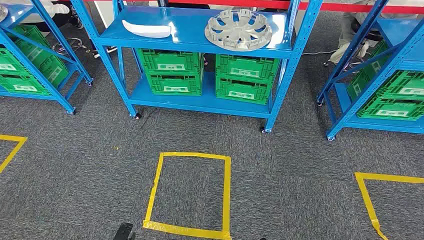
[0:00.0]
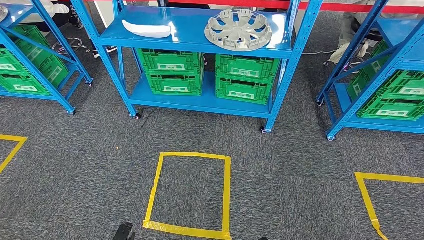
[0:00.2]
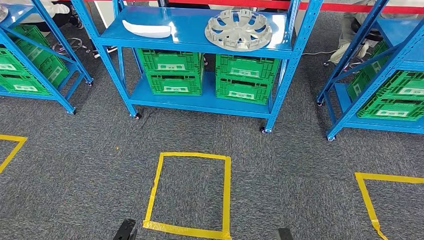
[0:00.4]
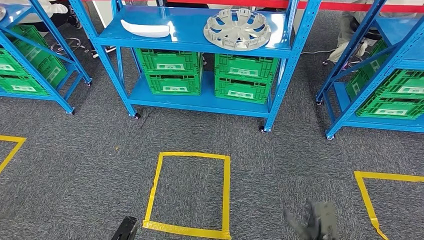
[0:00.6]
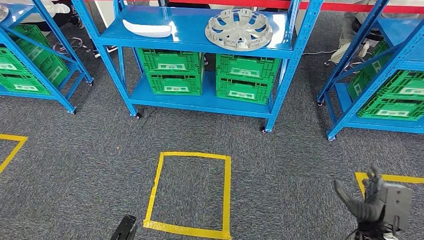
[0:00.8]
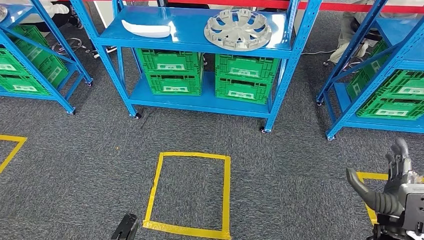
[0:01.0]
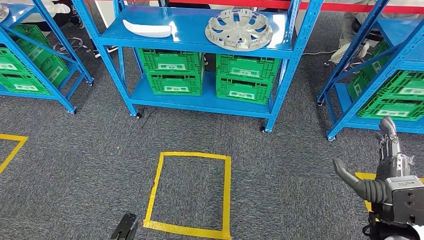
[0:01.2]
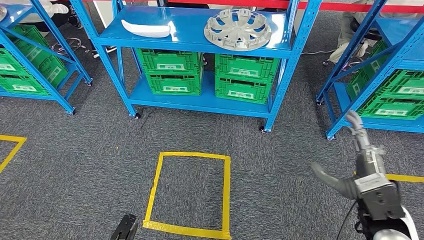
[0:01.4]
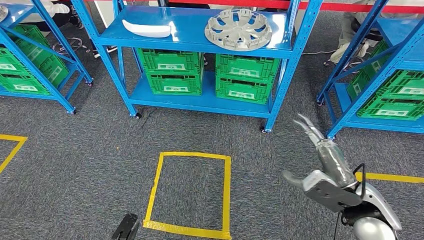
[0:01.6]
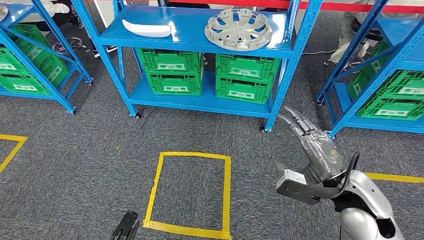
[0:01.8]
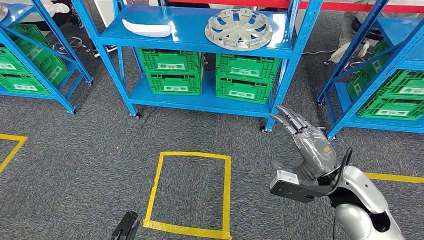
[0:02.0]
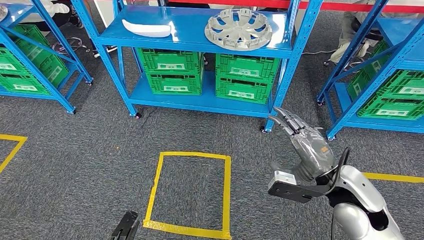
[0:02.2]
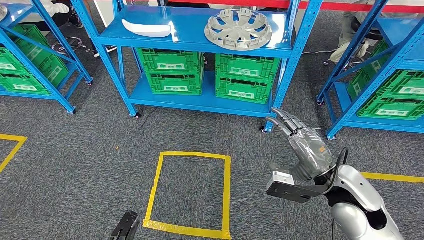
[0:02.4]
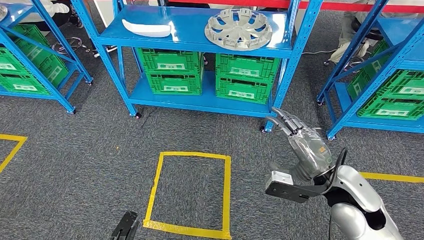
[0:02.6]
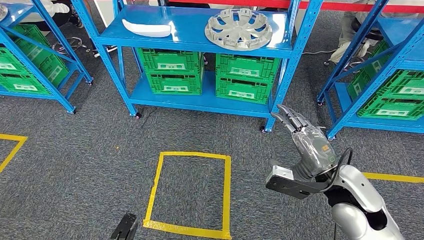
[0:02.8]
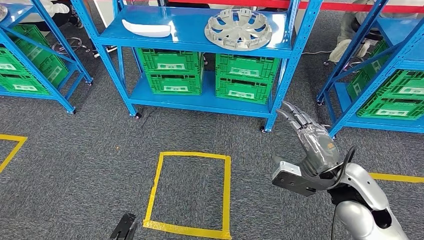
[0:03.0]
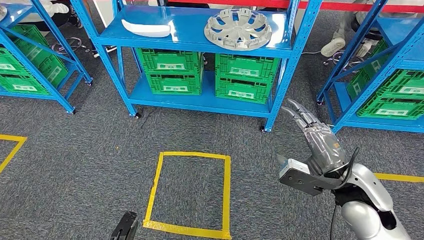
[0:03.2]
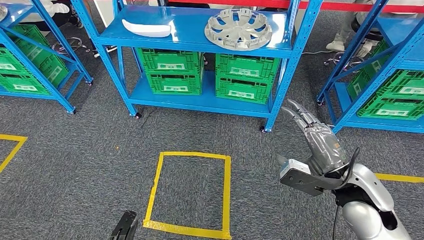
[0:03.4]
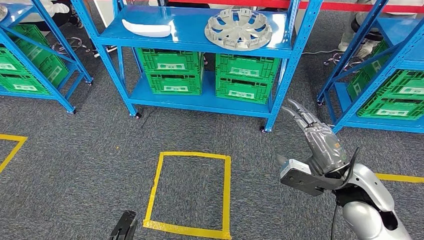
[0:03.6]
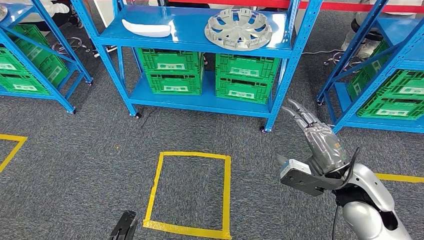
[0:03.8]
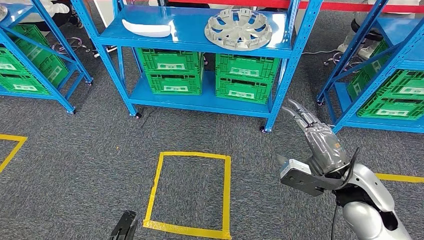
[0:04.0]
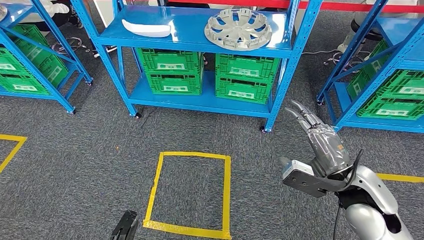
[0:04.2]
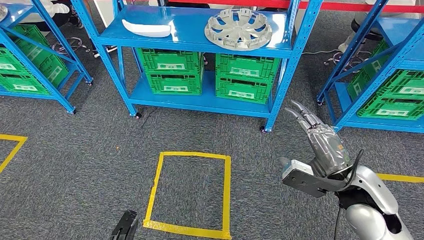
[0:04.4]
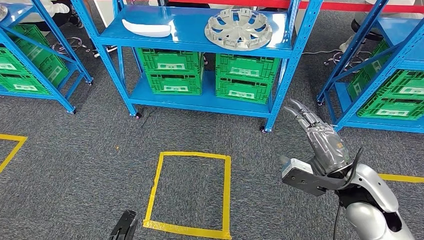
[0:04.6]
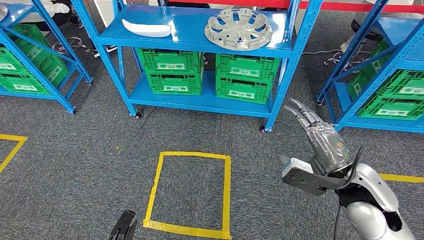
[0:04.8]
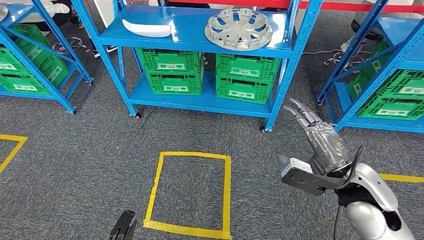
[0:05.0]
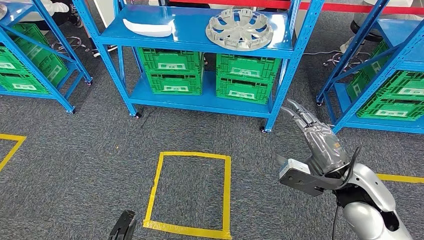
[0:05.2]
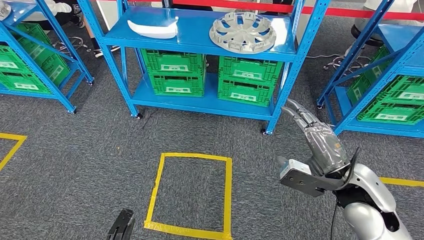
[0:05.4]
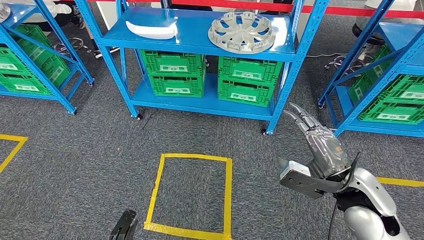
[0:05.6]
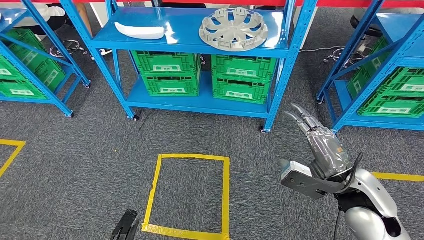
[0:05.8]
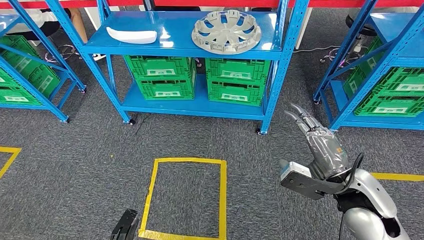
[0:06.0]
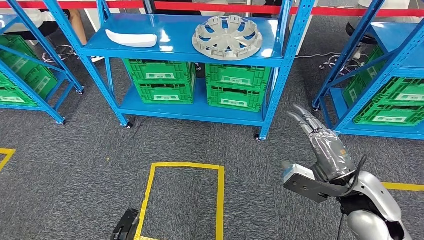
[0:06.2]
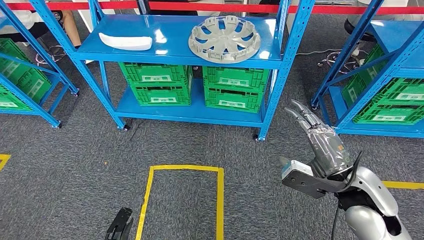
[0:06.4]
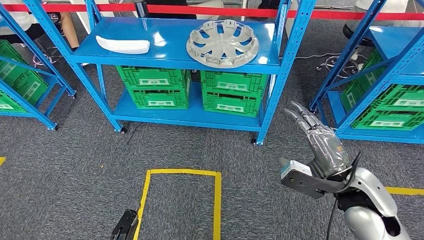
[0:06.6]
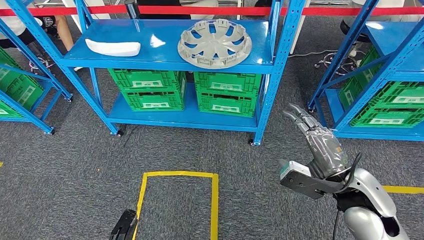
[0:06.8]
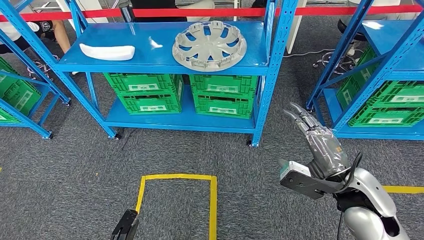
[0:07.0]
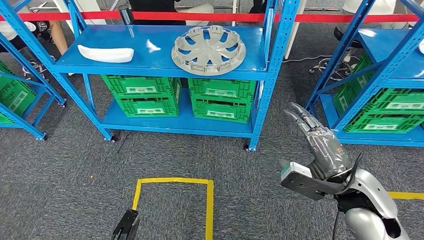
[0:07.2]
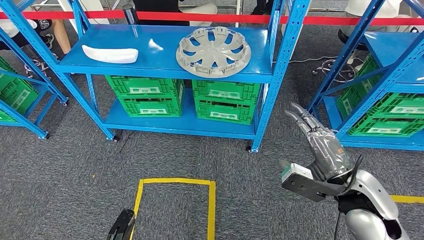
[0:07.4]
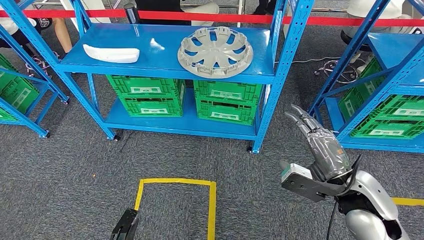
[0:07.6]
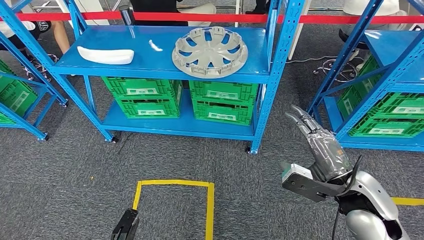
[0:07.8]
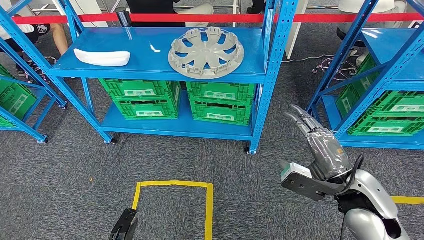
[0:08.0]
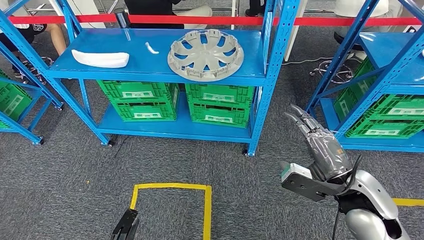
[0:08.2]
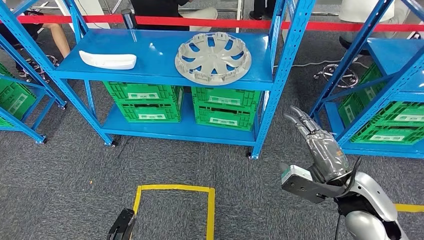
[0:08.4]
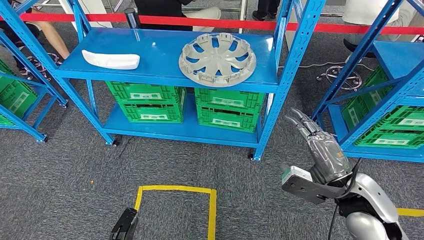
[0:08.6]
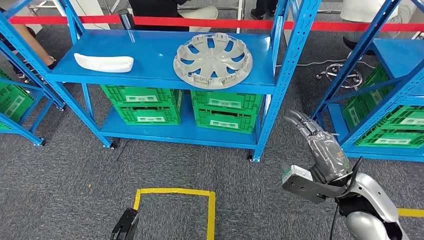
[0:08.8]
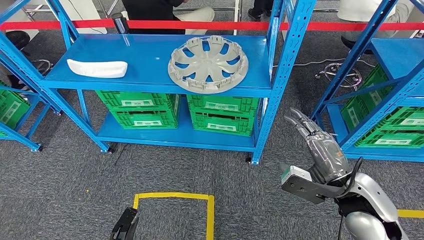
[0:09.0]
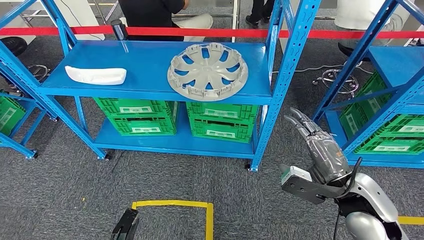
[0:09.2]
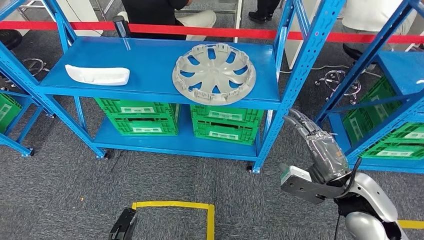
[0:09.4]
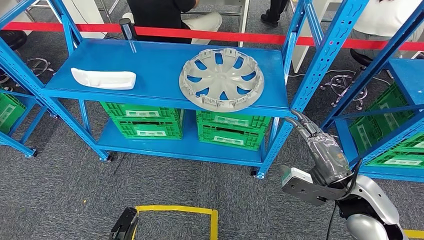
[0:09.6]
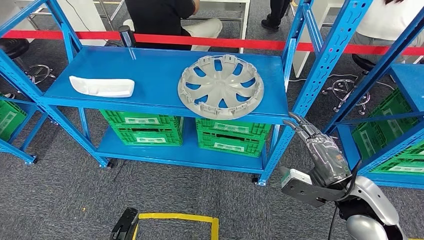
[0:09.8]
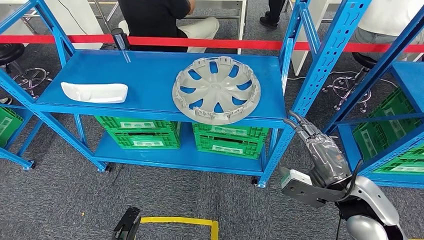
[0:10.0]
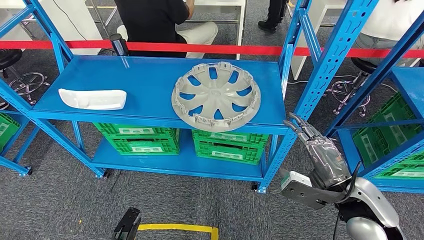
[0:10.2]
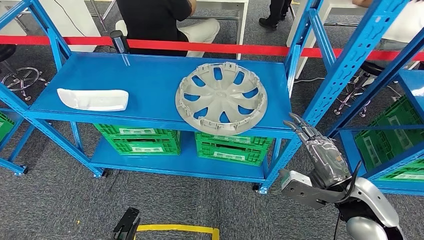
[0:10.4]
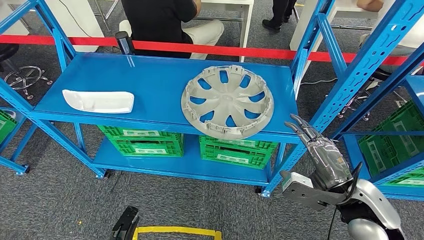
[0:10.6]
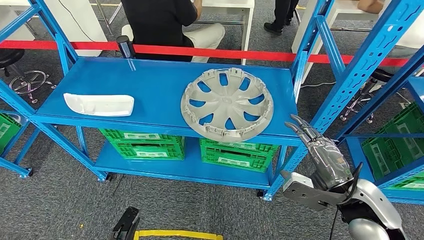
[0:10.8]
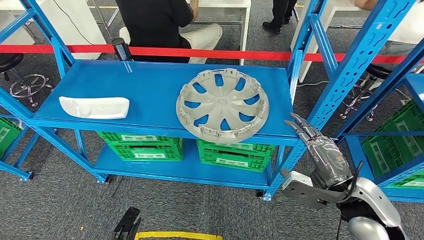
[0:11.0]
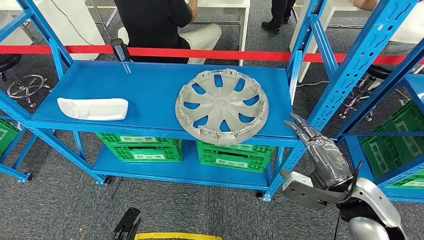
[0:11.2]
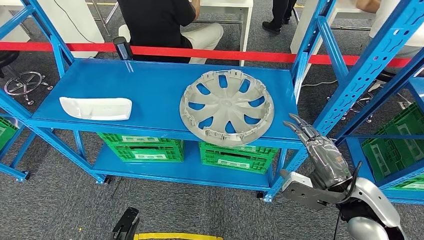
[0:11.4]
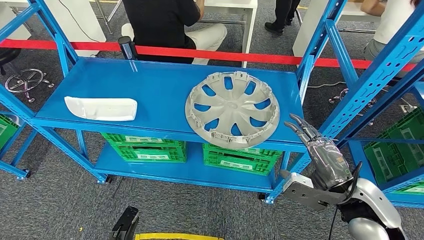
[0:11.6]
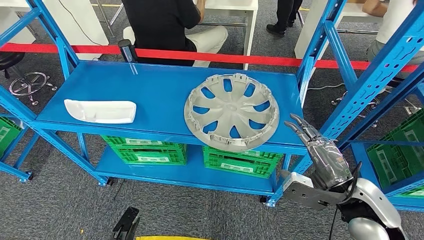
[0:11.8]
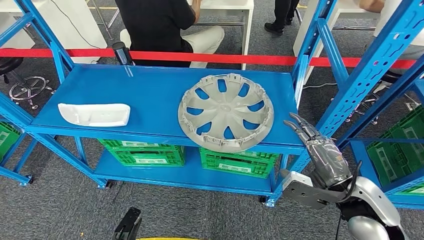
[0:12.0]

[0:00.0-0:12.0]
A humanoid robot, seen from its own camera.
0:03.0 to 0:04.4: Both hands stay put.

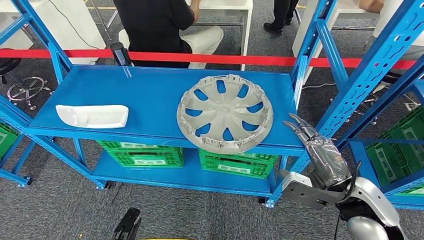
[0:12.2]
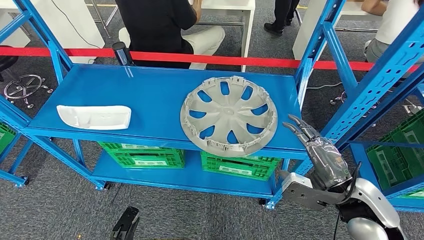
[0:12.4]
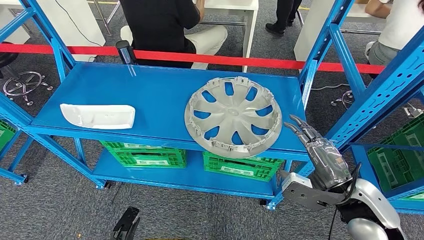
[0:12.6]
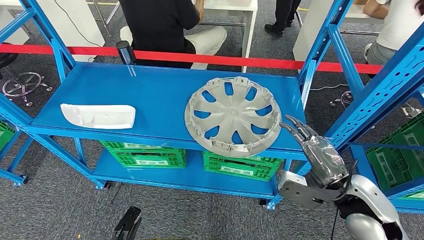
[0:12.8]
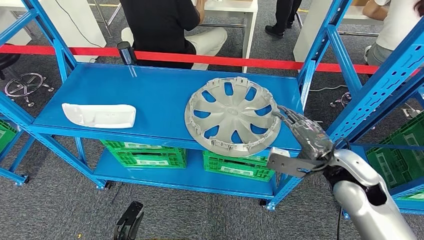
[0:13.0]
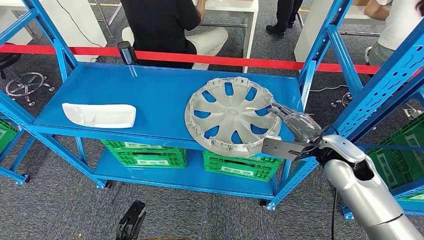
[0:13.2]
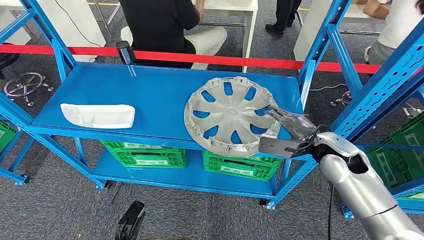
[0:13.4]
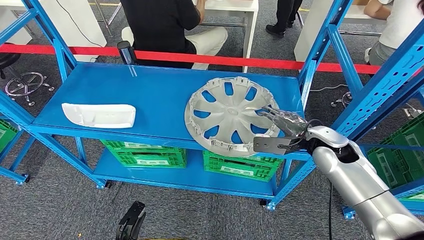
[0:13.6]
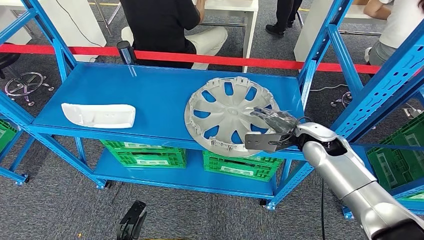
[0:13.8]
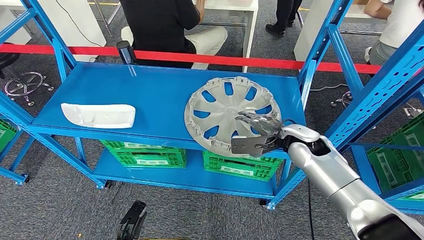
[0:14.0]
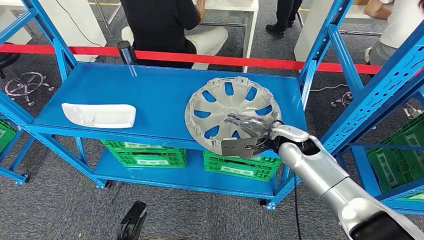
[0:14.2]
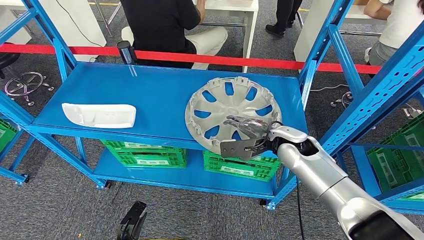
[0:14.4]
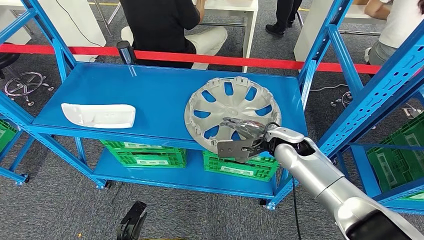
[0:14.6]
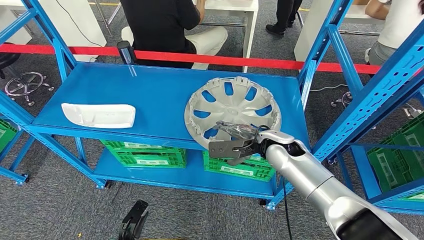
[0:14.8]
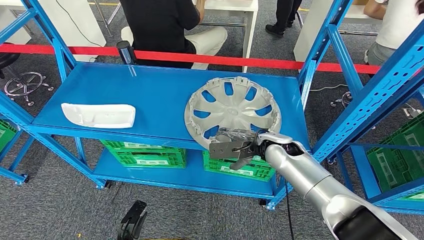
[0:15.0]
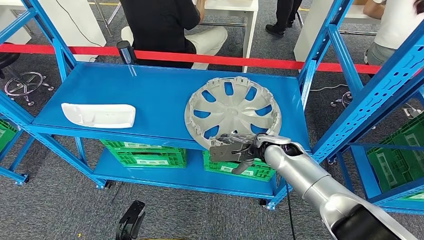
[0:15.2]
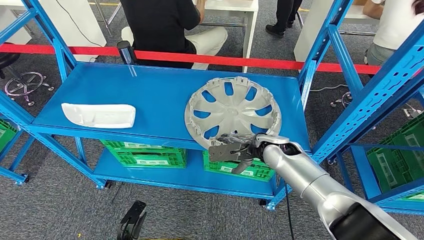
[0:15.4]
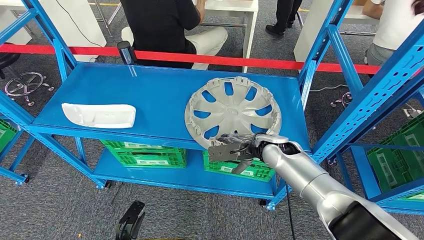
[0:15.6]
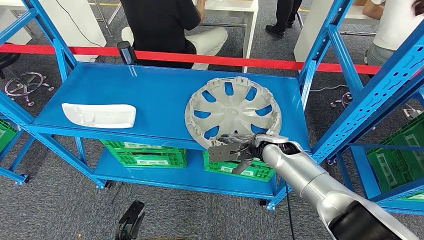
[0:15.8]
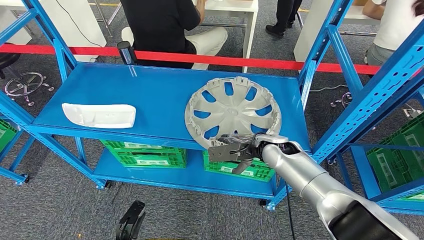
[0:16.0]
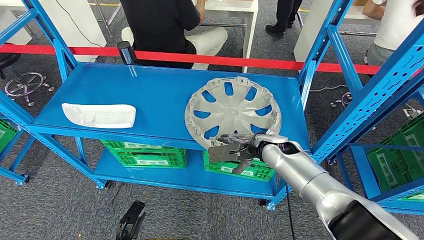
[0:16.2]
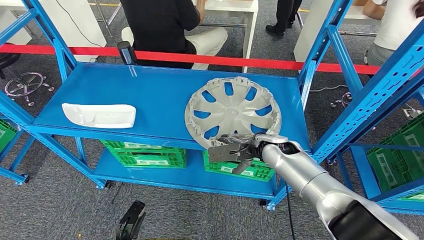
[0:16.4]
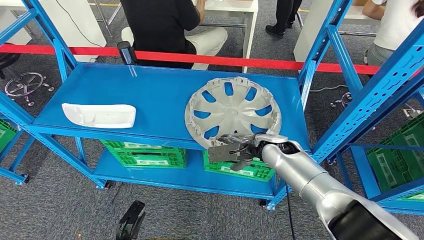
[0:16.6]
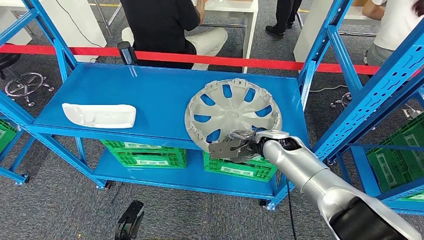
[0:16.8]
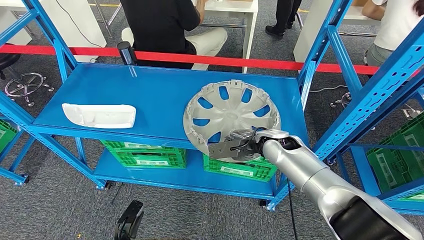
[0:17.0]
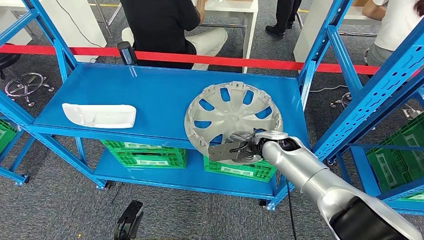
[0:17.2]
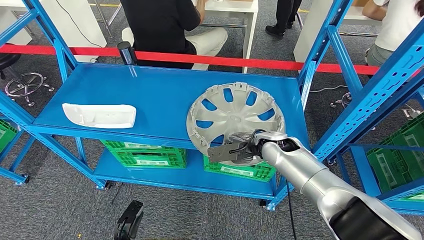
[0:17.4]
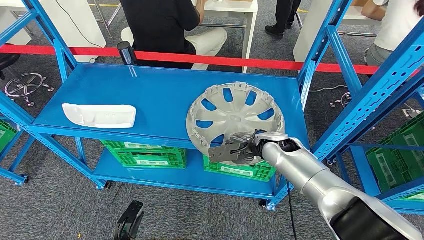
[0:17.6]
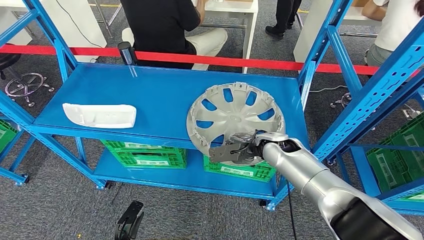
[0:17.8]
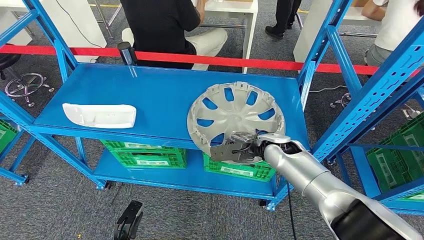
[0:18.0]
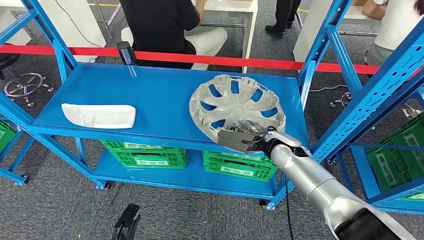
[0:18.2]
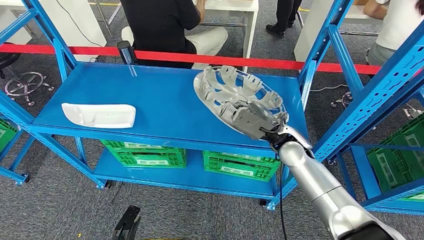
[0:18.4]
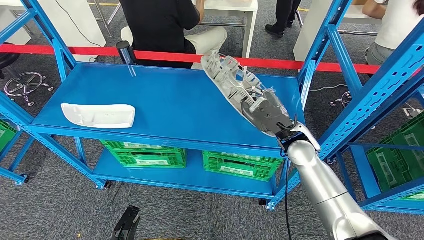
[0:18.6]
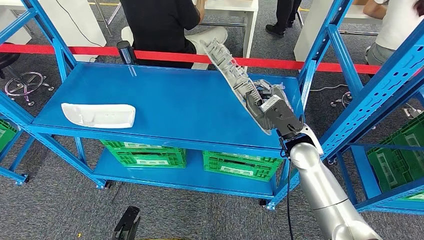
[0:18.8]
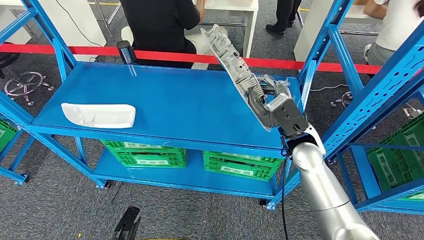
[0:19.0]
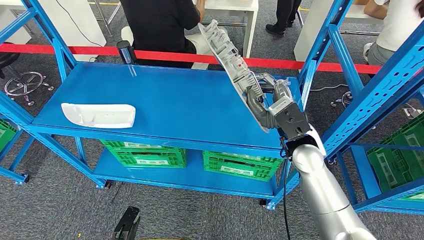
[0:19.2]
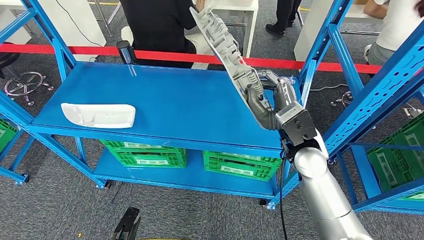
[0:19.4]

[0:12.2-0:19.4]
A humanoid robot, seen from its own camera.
0:13.6 to 0:15.0: The right hand heads to the left, covering about 10 cm.
0:15.0 to 0:16.6: The hands make only small movements.
0:16.6 to 0:18.0: Neither hand changes place.
